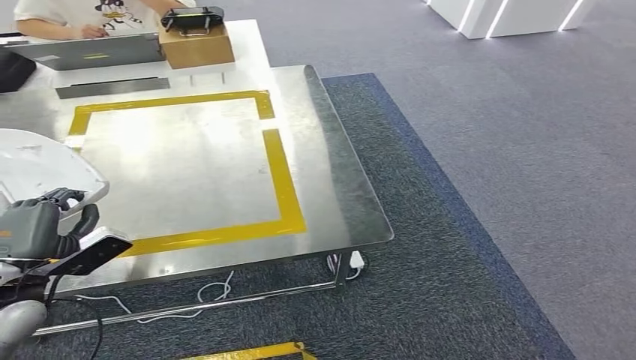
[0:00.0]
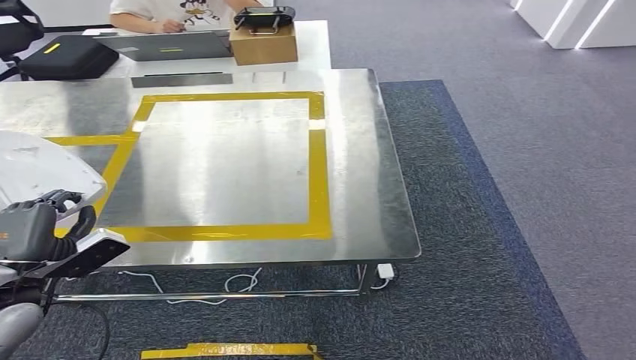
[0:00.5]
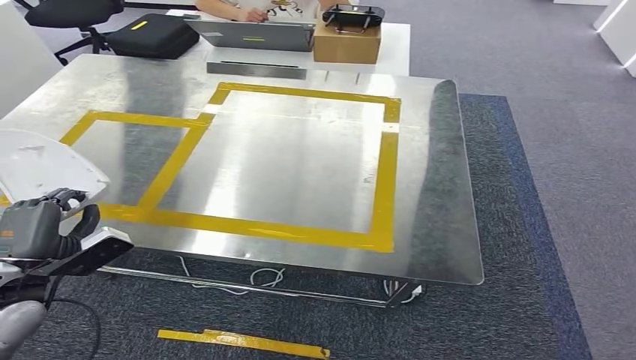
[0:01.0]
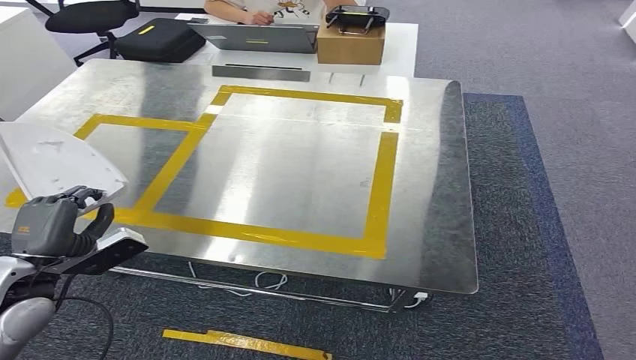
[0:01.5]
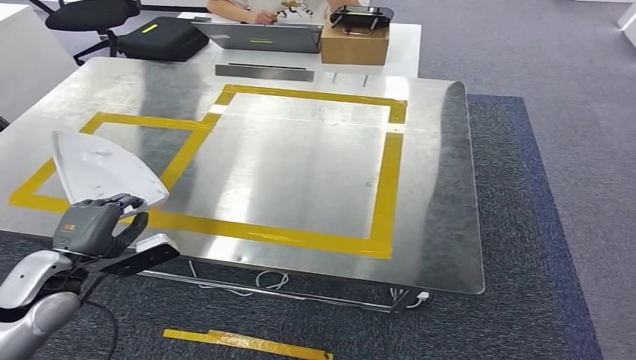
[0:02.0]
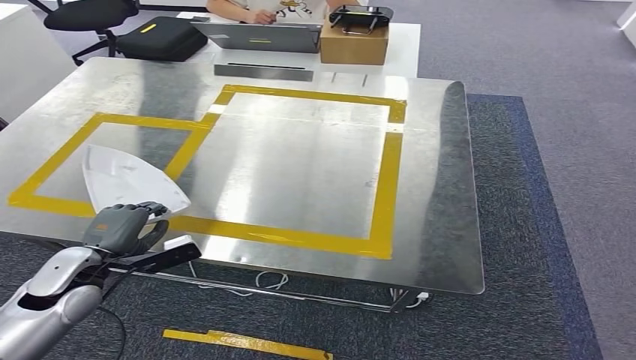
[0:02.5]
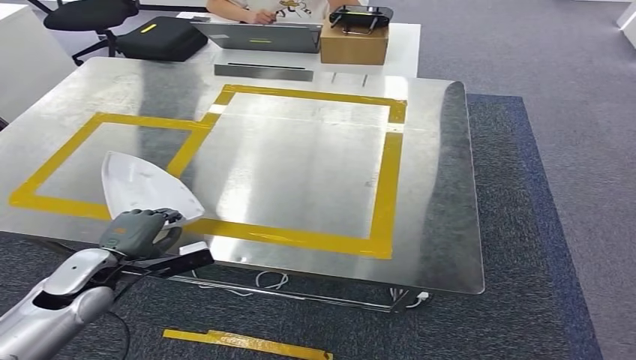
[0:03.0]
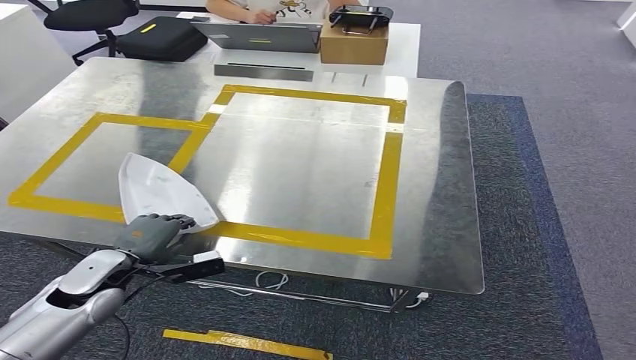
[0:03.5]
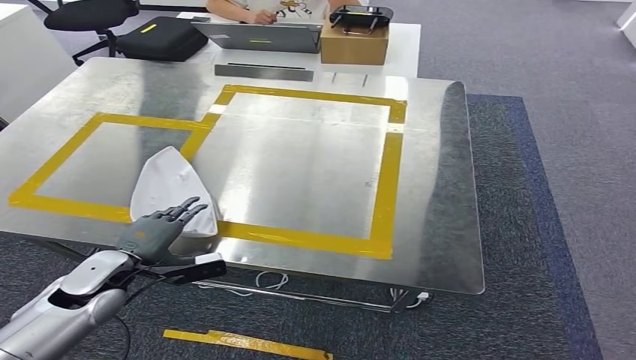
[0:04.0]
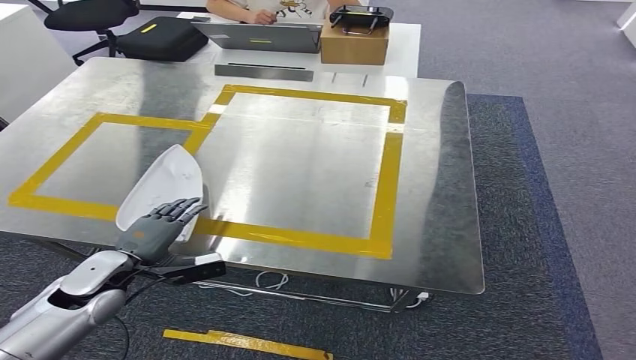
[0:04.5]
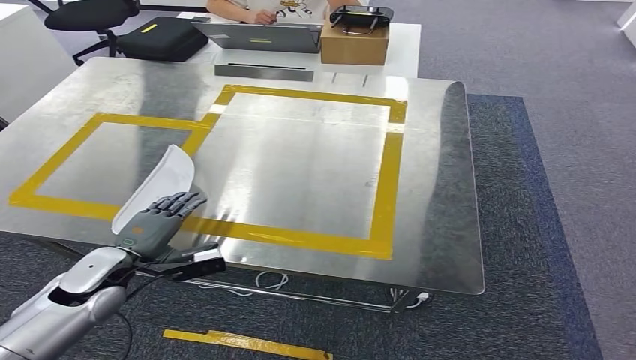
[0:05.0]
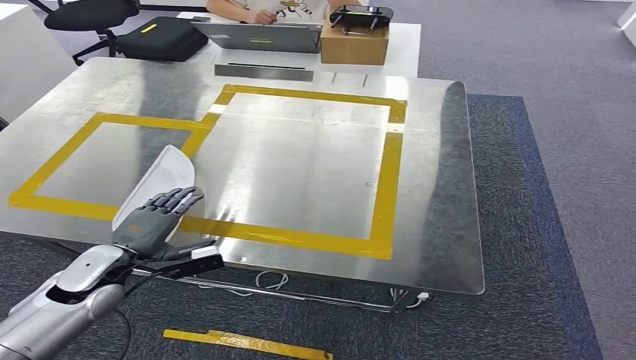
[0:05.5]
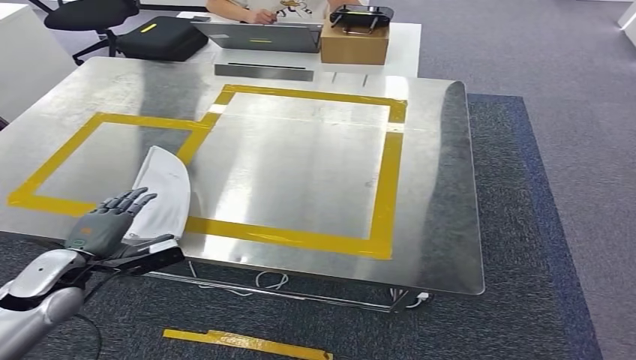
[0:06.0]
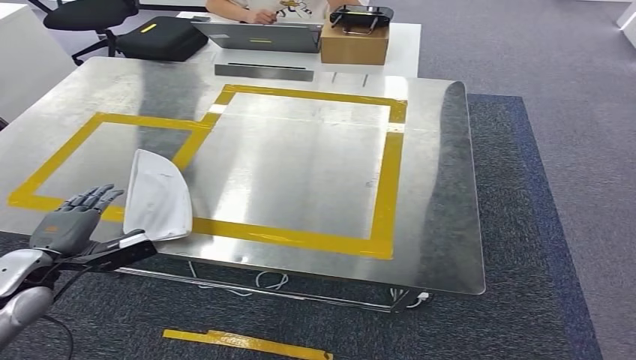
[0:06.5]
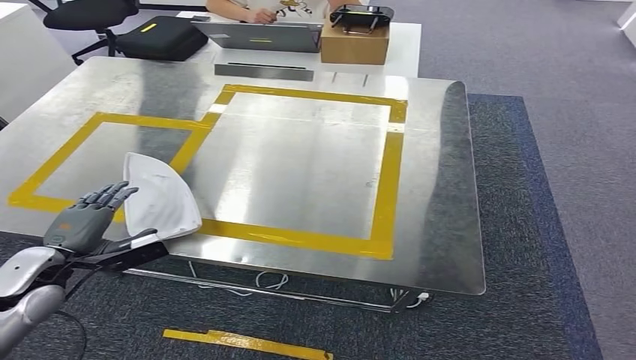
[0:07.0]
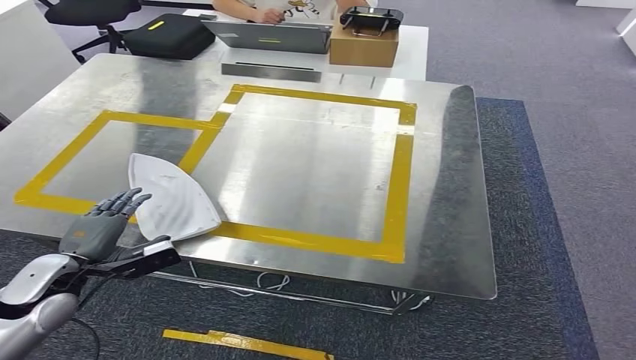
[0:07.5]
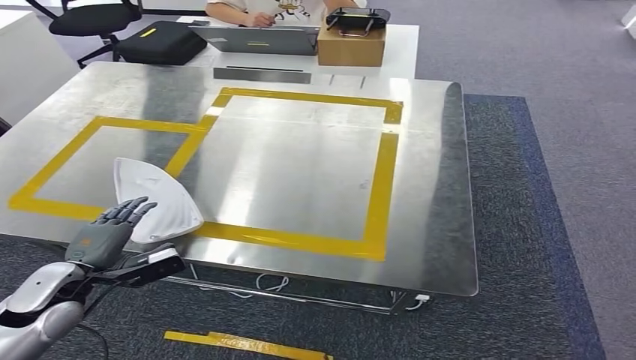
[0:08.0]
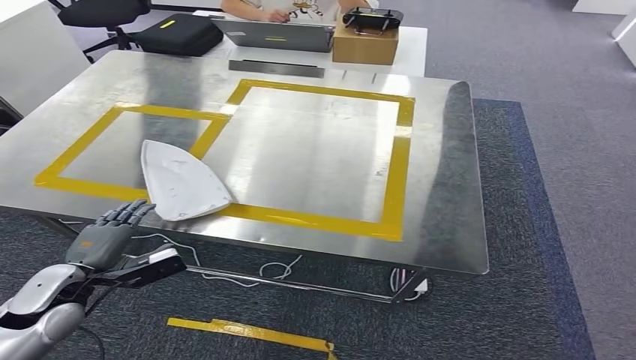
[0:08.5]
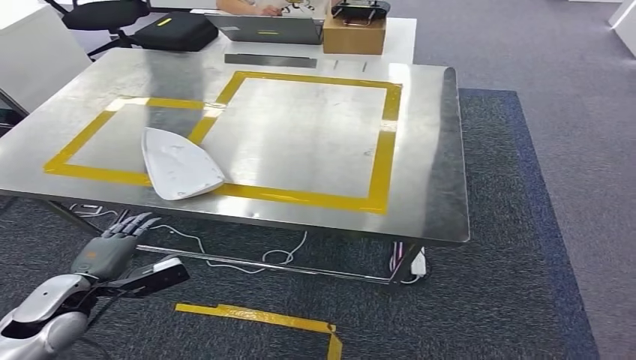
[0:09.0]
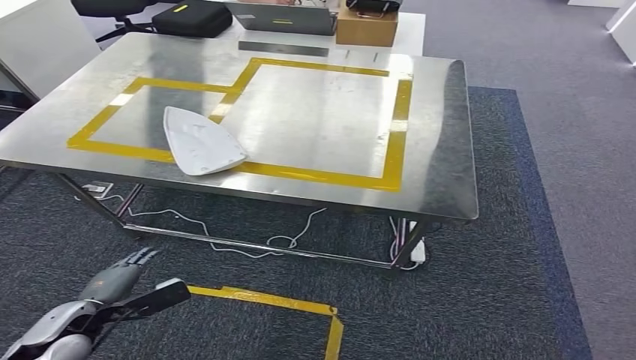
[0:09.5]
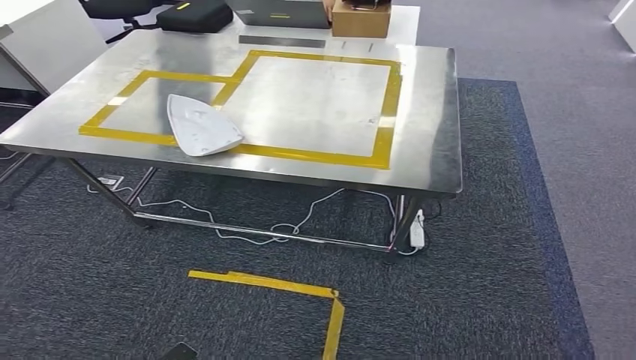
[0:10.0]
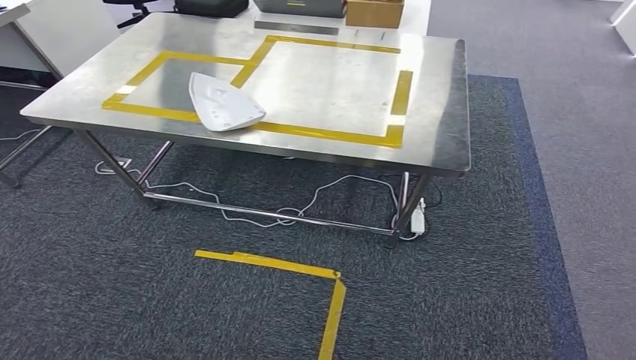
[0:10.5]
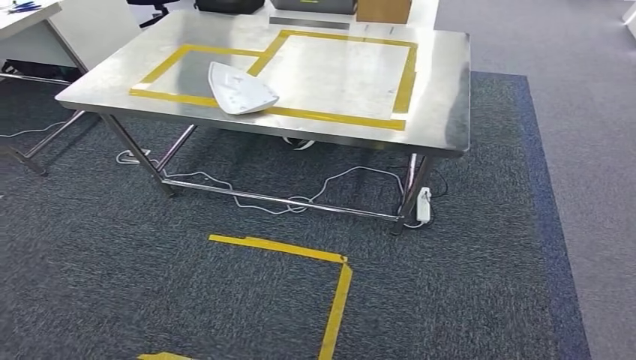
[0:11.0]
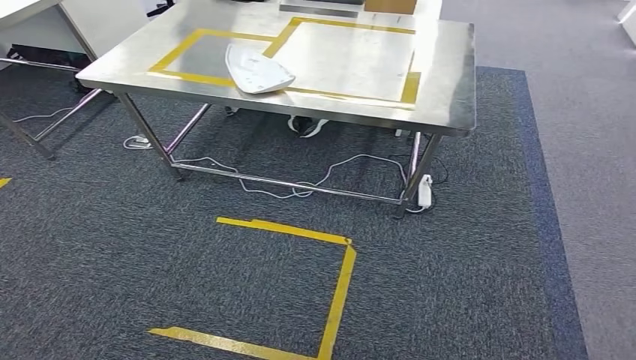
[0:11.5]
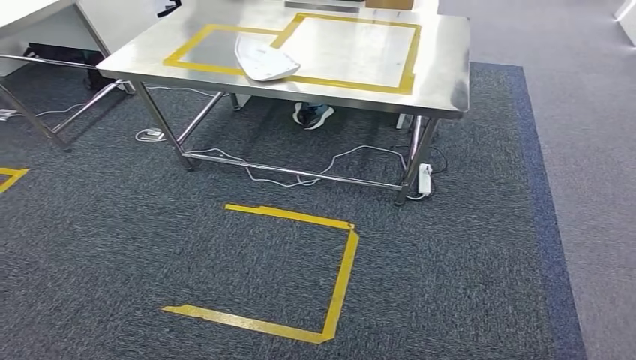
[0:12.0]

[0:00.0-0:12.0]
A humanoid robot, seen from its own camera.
Step, 0:00.0 to 0:09.5: Insert the small component into the corresponding slot on the workbench.
0:02.0 to 0:04.0: The left hand travels downward by roughly 5 cm.
0:04.0 to 0:06.0: The left hand goes some 5 cm to the left.
0:06.0 to 0:08.0: There are only small adjustments of the hands.

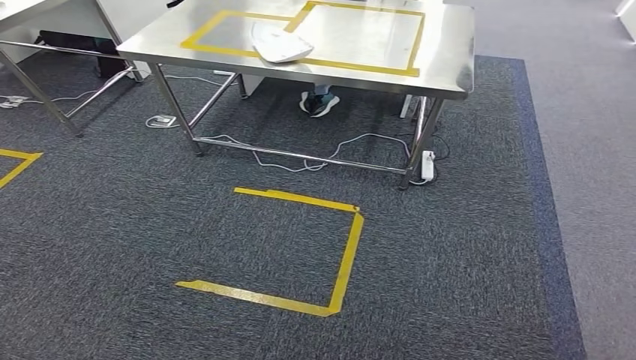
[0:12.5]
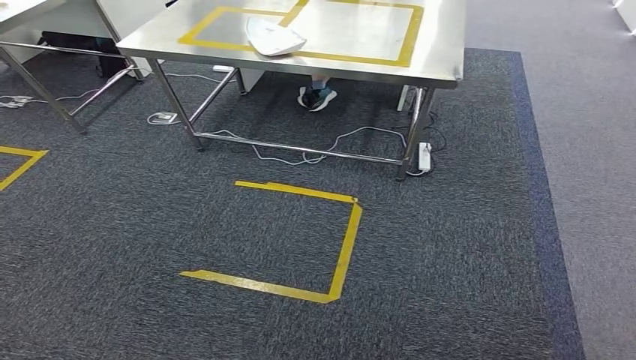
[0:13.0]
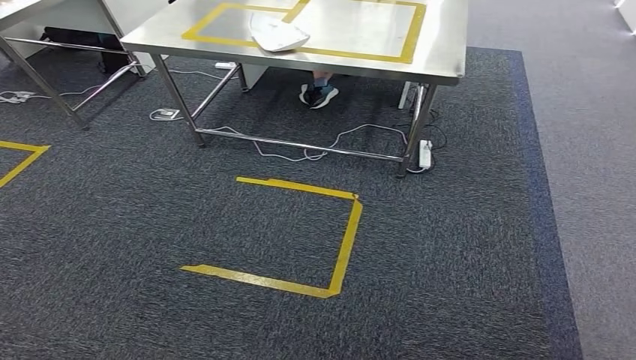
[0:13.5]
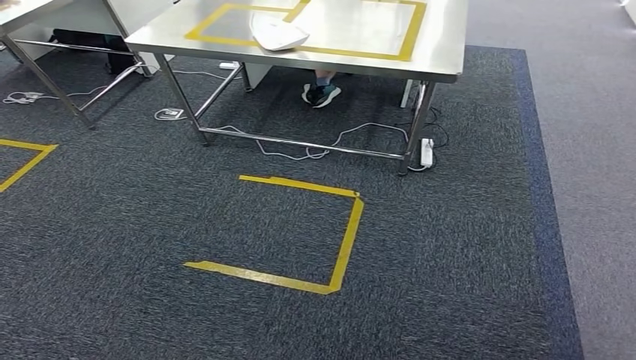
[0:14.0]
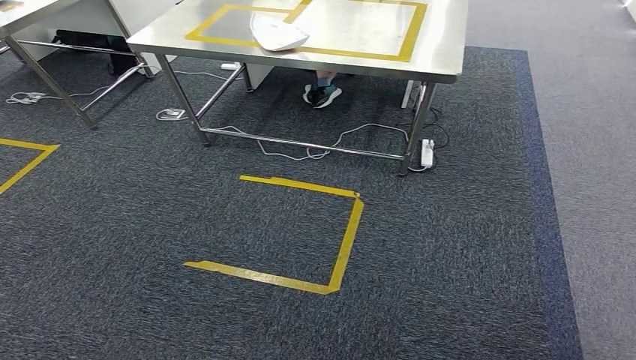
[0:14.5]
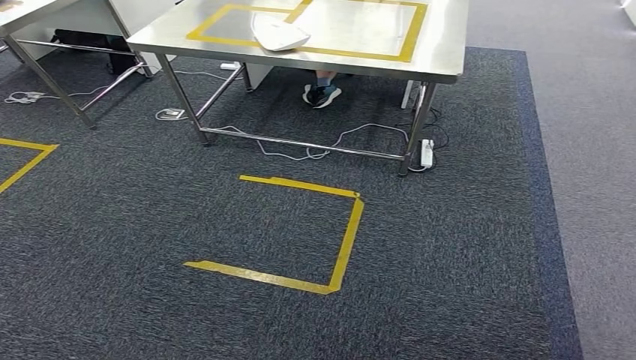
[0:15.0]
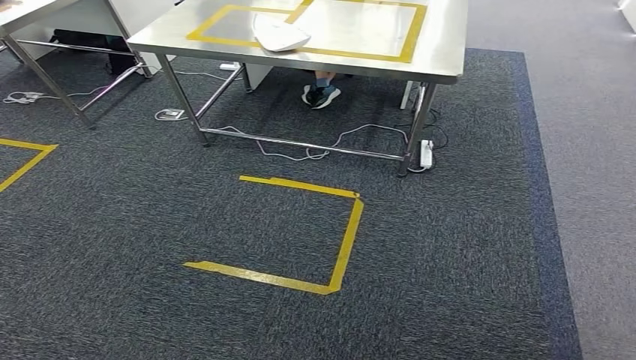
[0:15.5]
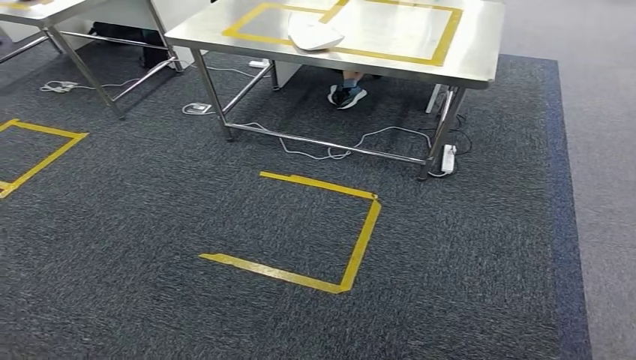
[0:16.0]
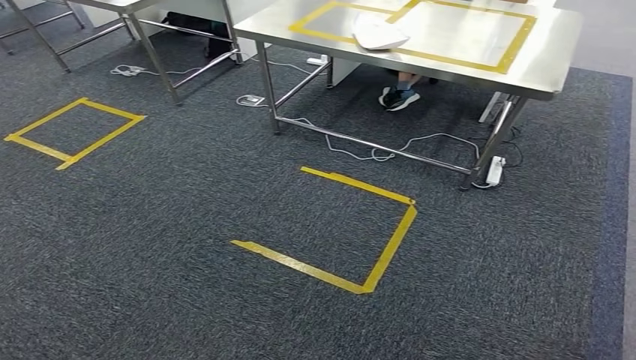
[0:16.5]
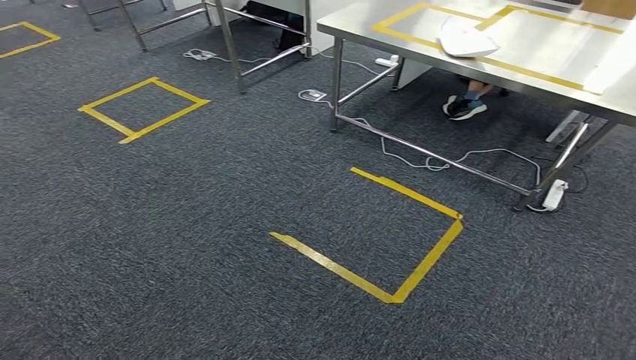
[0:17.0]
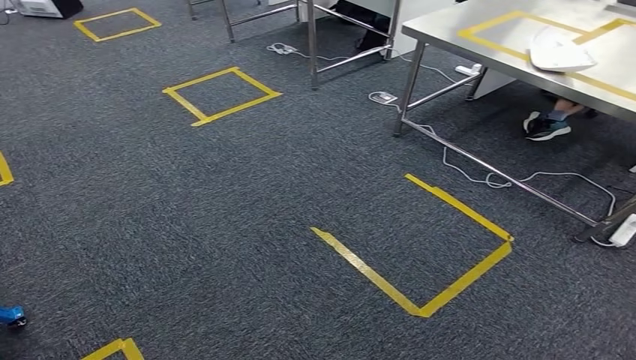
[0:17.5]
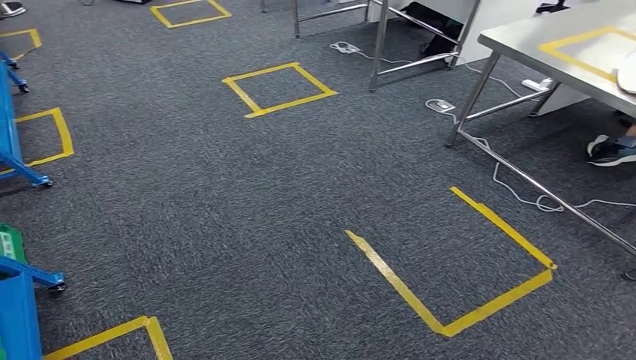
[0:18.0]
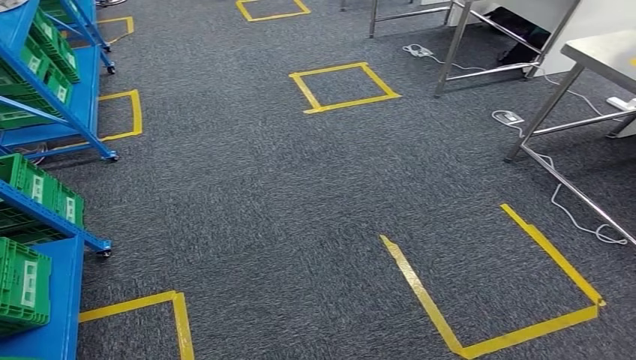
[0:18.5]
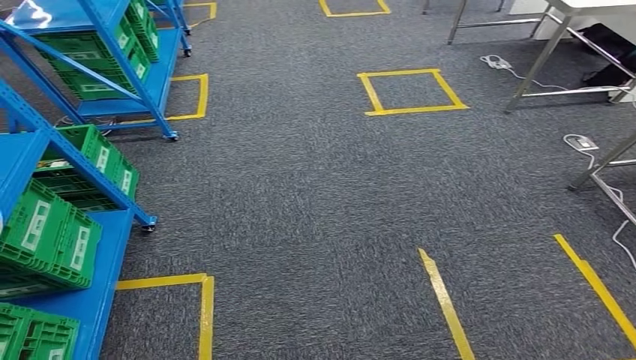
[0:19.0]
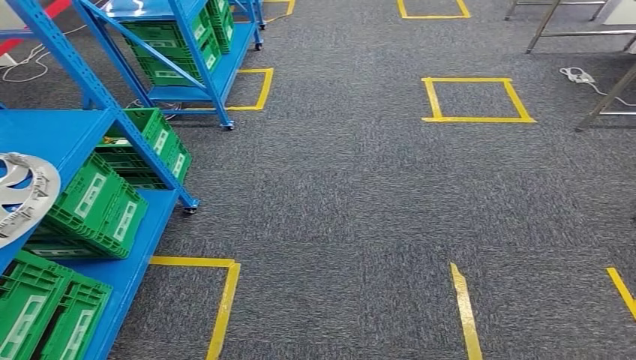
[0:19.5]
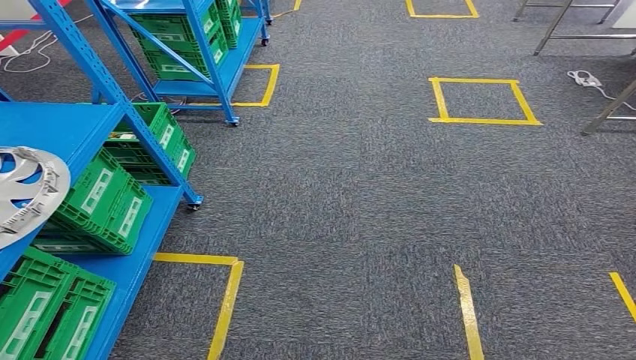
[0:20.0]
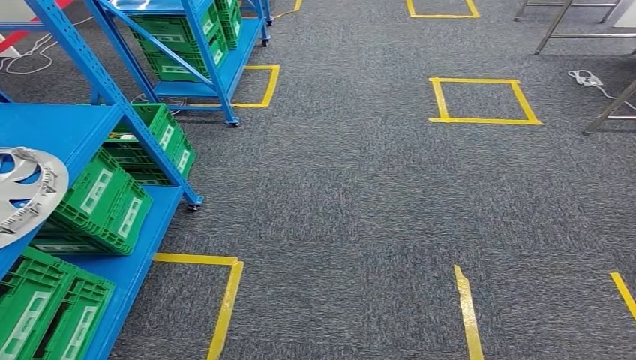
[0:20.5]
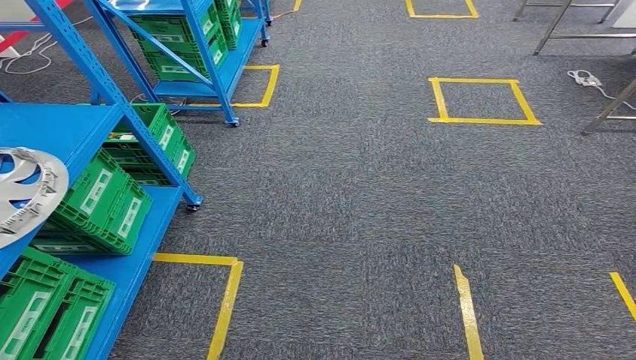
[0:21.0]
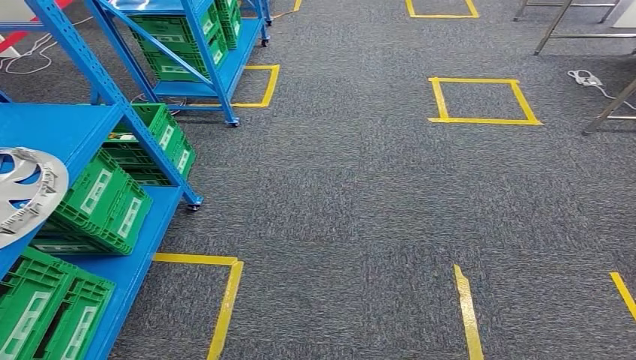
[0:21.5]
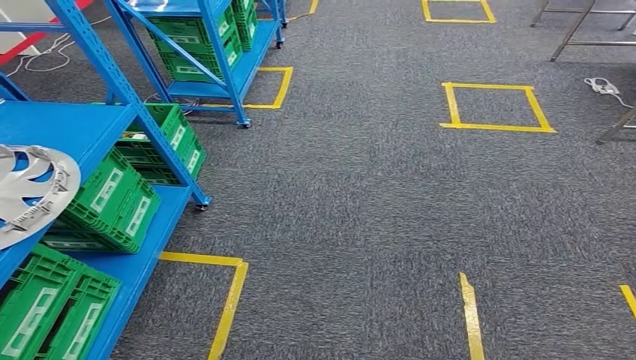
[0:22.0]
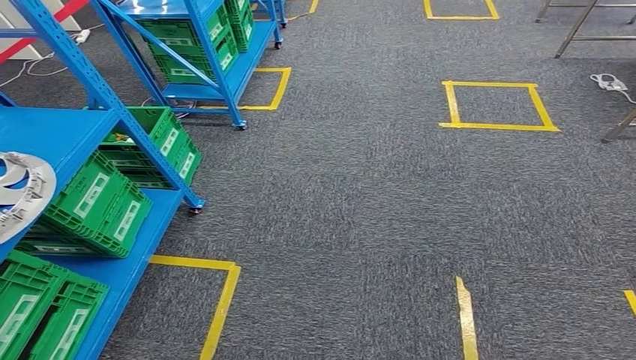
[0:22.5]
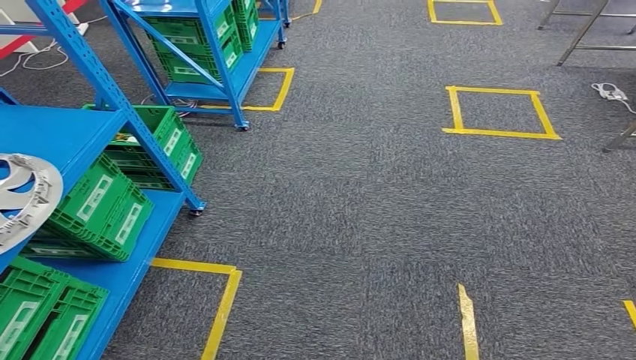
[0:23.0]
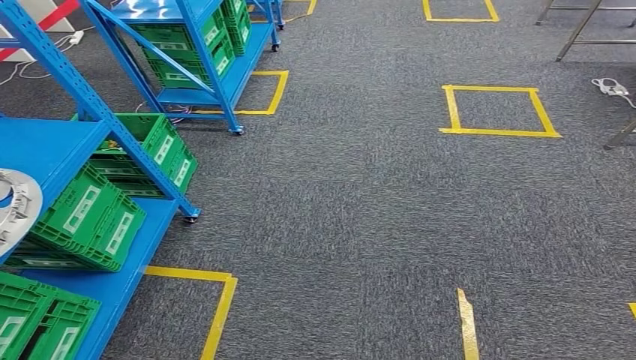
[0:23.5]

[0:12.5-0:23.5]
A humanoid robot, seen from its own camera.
0:12.5 to 0:14.5: The hands stay close to where they were, moving slightly.
0:20.0 to 0:21.5: There are only small adjustments of the hands.
